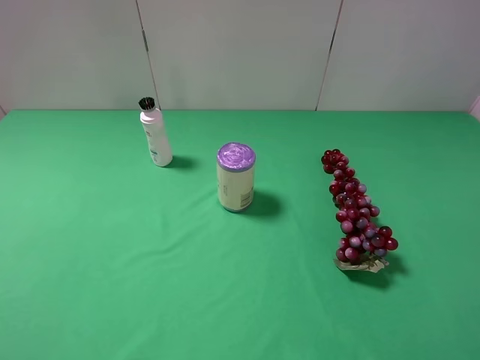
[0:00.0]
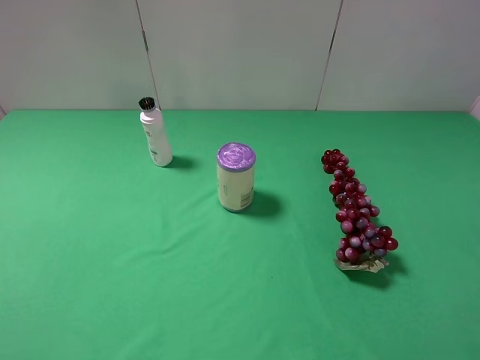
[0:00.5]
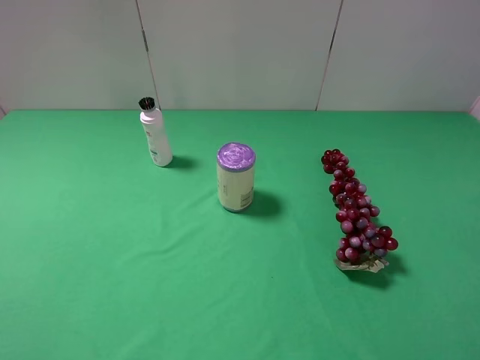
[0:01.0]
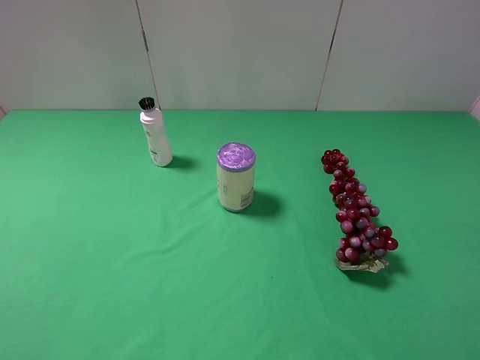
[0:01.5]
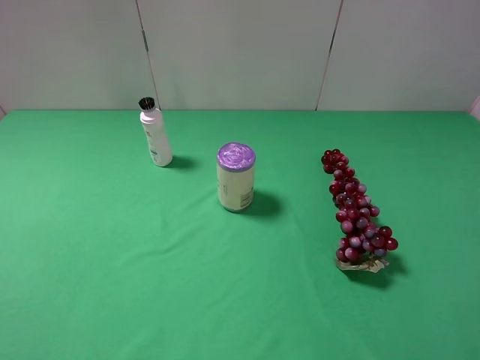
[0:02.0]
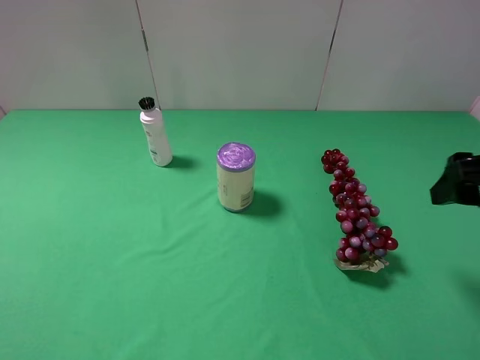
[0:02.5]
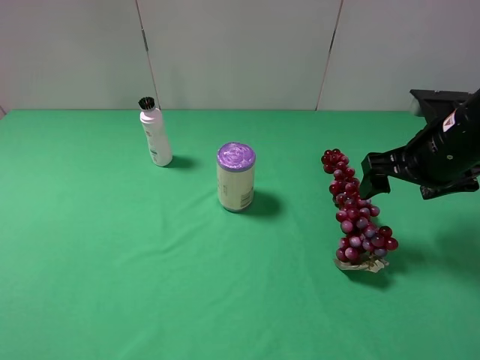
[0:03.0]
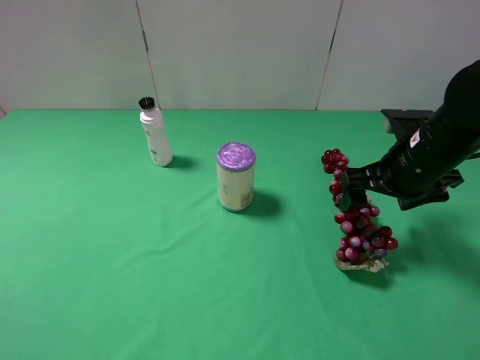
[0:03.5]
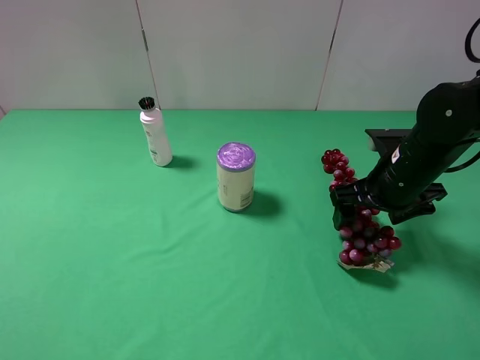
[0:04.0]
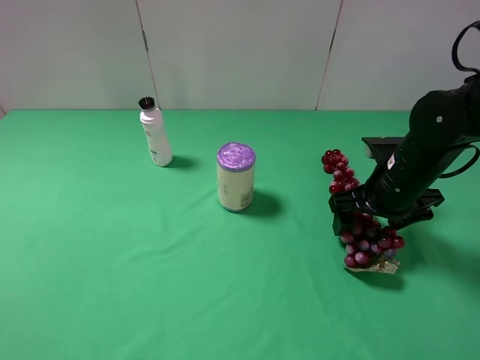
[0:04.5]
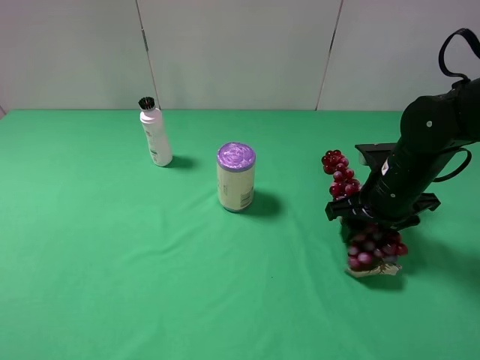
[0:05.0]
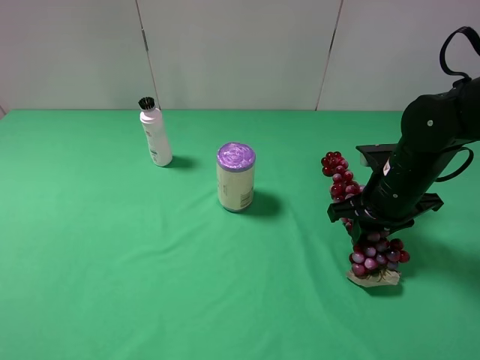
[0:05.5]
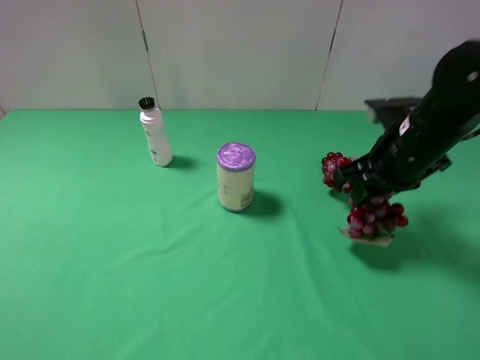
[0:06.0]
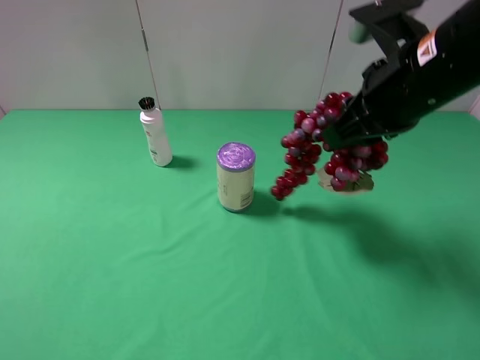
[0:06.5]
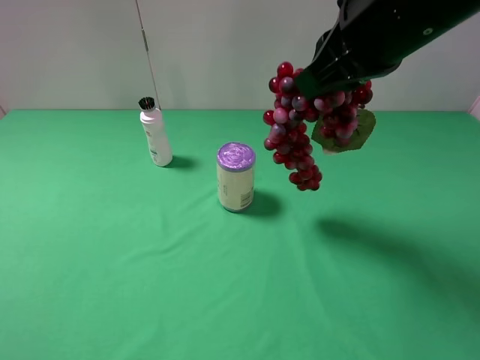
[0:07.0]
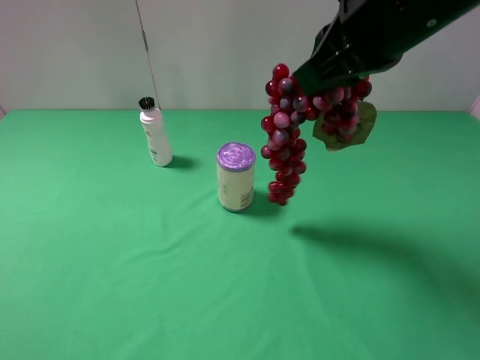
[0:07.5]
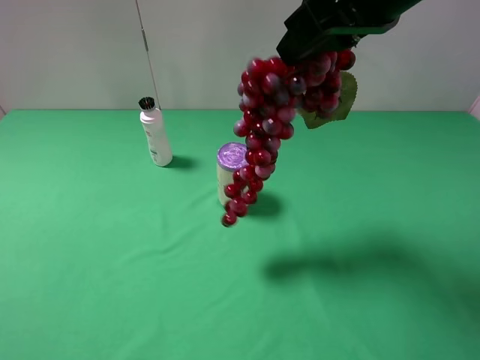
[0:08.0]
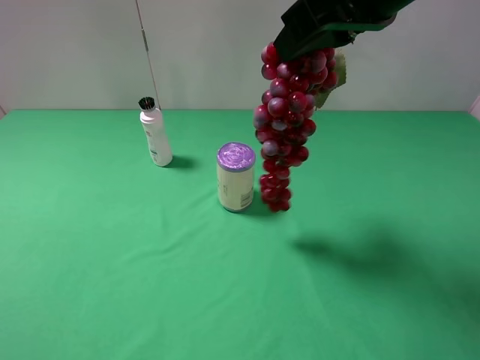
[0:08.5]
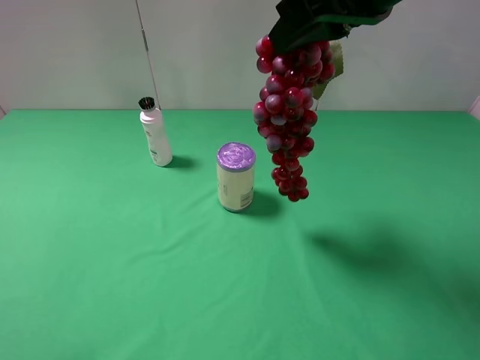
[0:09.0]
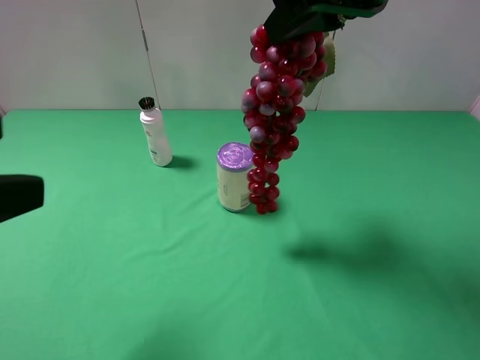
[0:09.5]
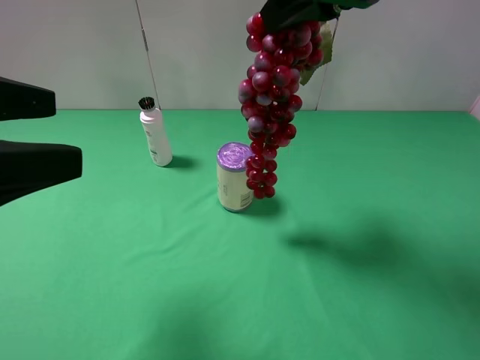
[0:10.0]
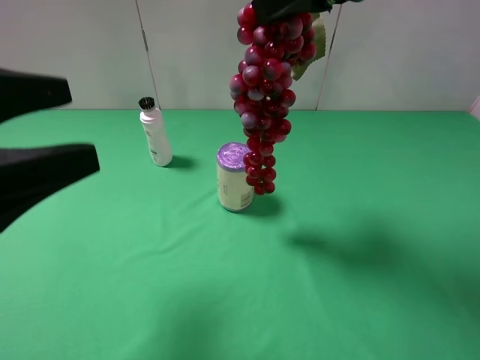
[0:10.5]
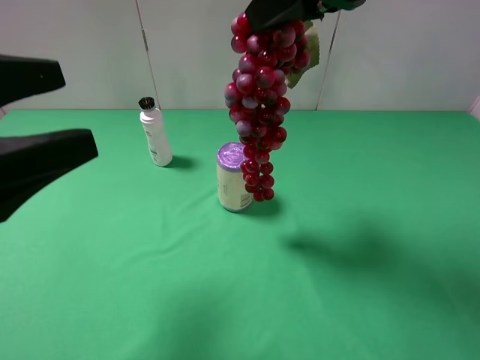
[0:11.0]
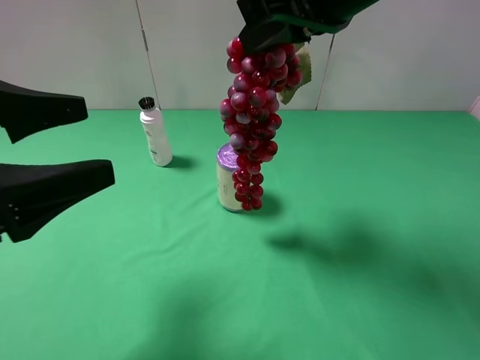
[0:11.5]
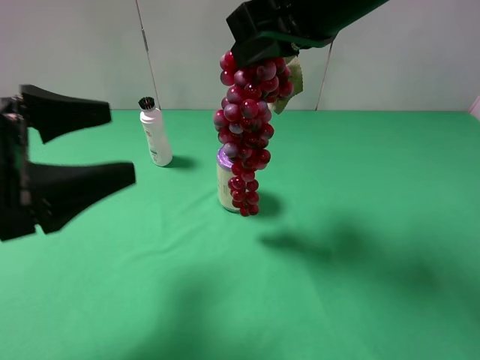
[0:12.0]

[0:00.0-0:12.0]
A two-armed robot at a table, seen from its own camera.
Task of the whole recording: use the right gripper to pick up the item and transfer it from the right gripper to the left gripper.
Step, 0:00.0 to 0:05.0: Use the right gripper to grab the grape on the right side of the table.
0:02.0 to 0:04.0: The right gripper moves forward, downward and to the left, about 25 cm.
0:04.0 to 0:06.0: The right gripper heads upward, covering some 5 cm, and closes its fingers.
0:06.0 to 0:08.0: The right gripper is displaced upward and to the left by roughly 20 cm.
0:08.0 to 0:10.0: The left gripper travels forward and to the right by some 15 cm.
0:10.0 to 0:12.0: The left gripper moves downward, some 5 cm.

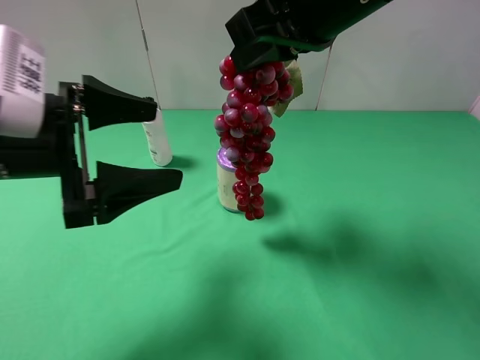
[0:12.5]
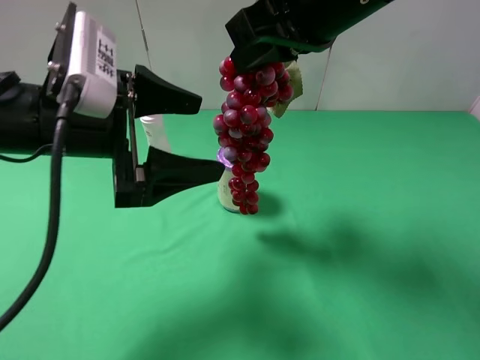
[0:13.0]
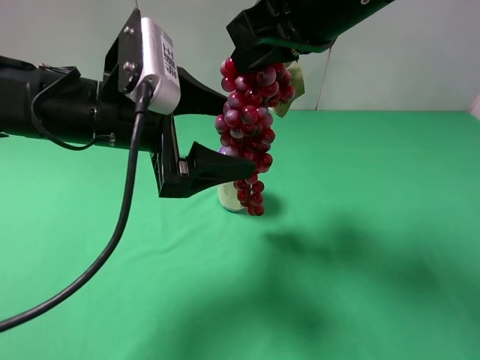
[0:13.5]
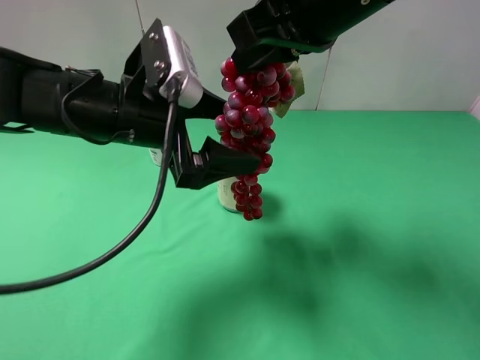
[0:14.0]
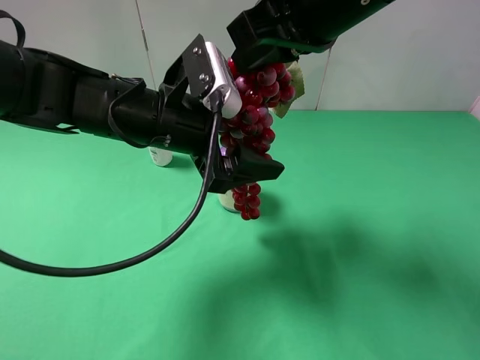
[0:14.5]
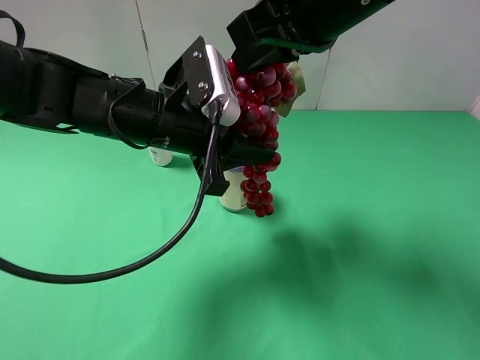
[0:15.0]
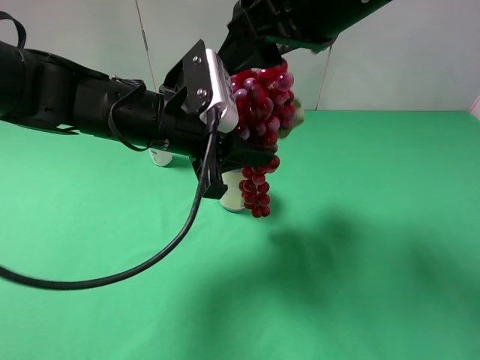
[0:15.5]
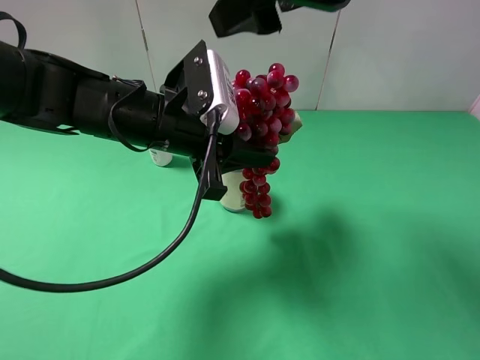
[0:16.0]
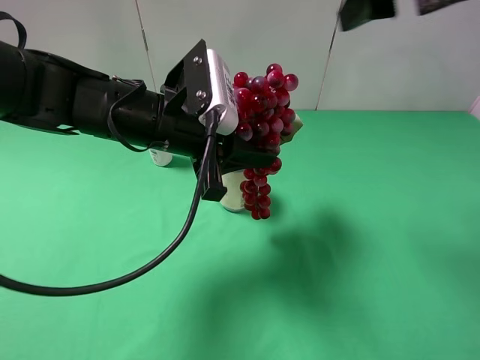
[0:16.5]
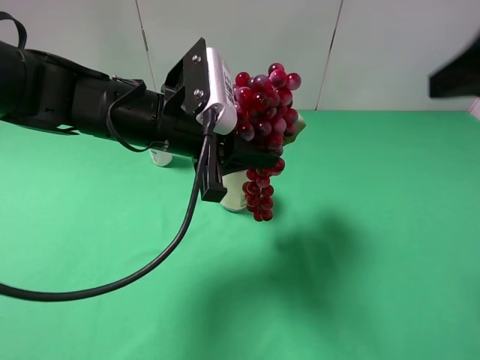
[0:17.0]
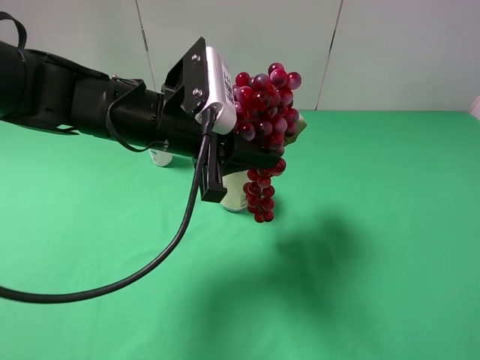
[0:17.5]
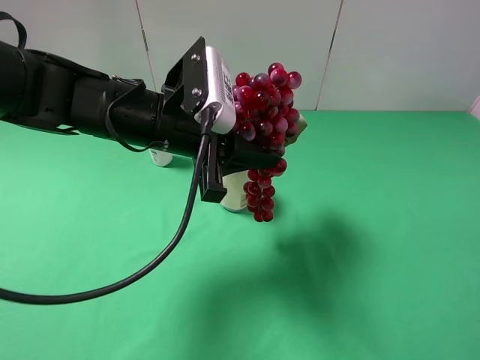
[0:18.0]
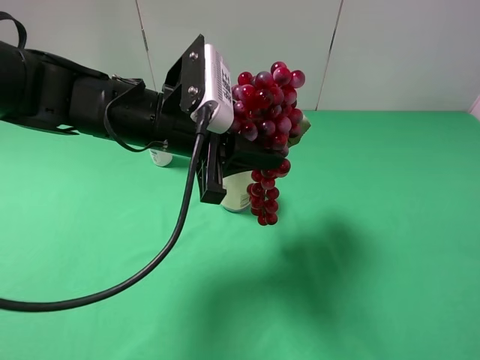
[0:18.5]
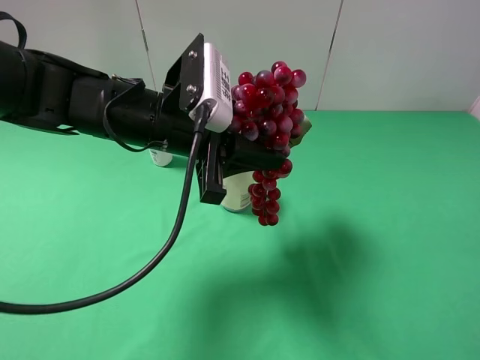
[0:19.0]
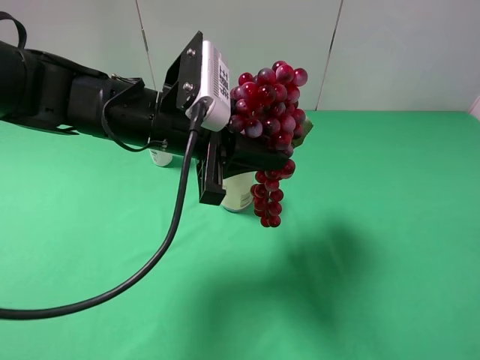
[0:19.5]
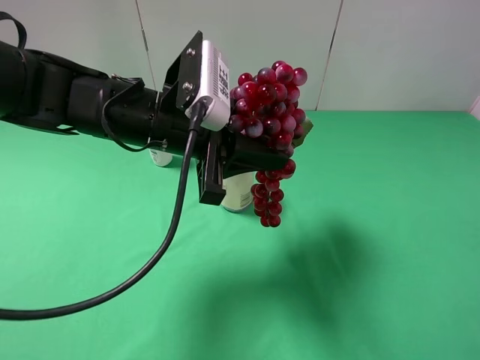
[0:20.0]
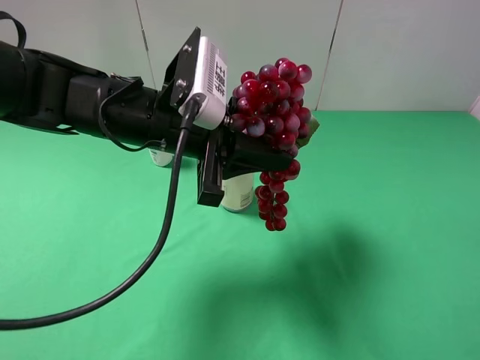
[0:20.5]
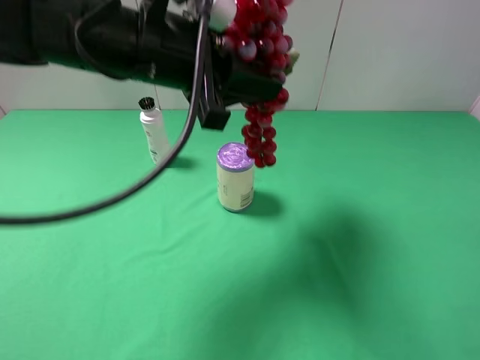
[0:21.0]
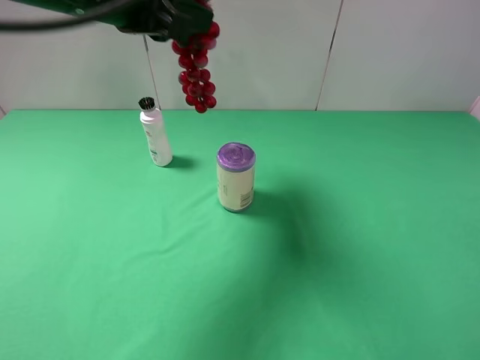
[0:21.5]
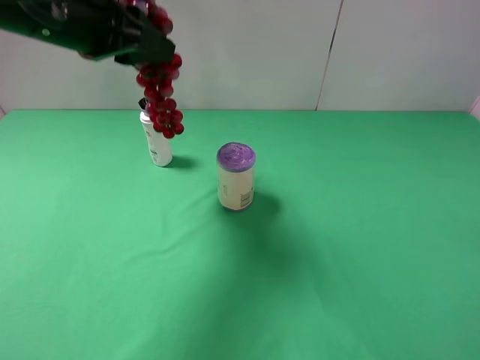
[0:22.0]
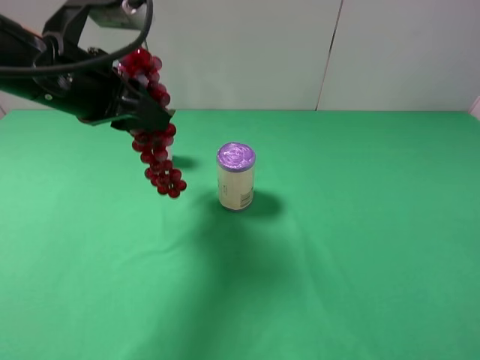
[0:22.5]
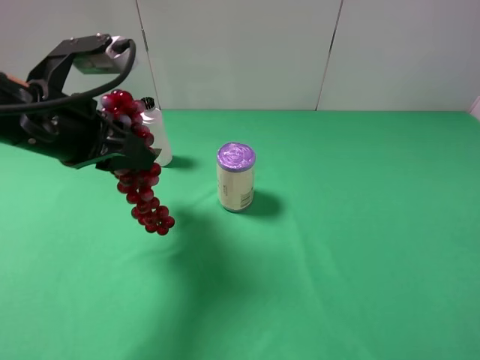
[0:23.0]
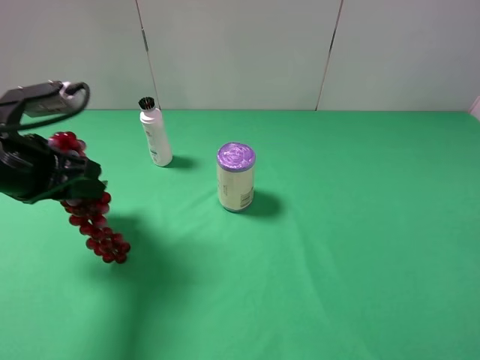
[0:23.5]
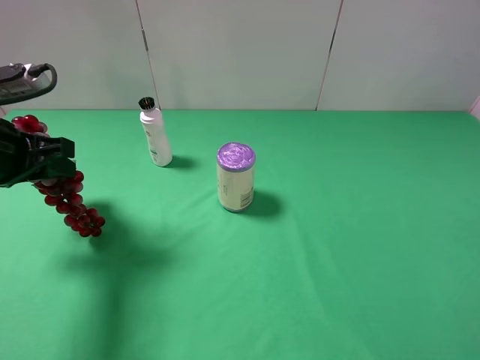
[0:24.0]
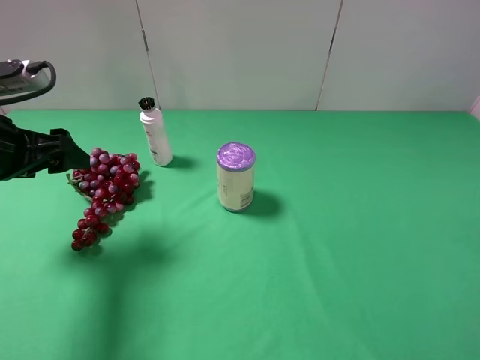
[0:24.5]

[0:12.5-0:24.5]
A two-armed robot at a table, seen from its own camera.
Task of the whole recording: use the right gripper to pick up the item and transfer it from the right gripper to the left gripper.
Step, 0:12.5 to 0:15.5: Pass the grape to the left gripper.
0:12.5 to 0:14.5: The left gripper heads to the right and forward, covering roughly 15 cm.
0:14.5 to 0:16.5: The left gripper closes, while the right gripper travels to the right by roughly 10 cm, and opens its fingers.
0:16.5 to 0:18.5: The right gripper shifts some 30 cm backward, downward and to the right.
0:20.5 to 0:22.5: The left gripper shifts approximately 10 cm to the left and upward.
0:22.5 to 0:24.5: The left gripper moves to the left and downward, approximately 10 cm, and opens its fingers.

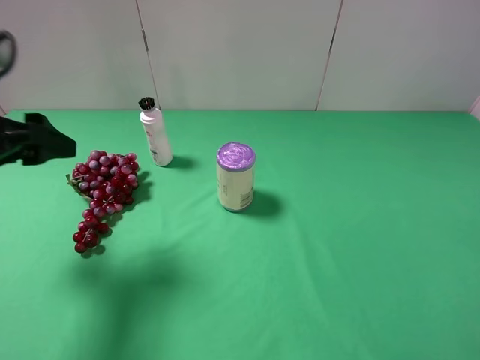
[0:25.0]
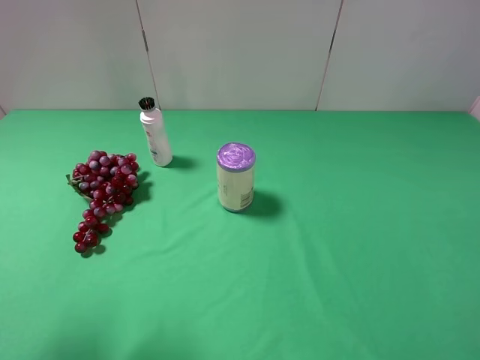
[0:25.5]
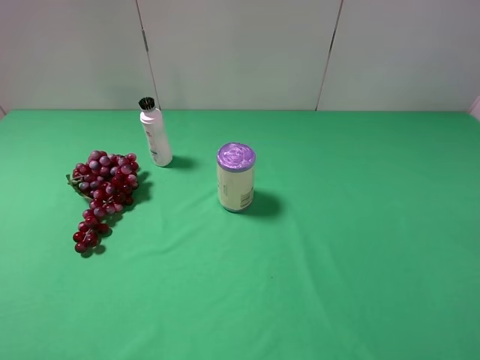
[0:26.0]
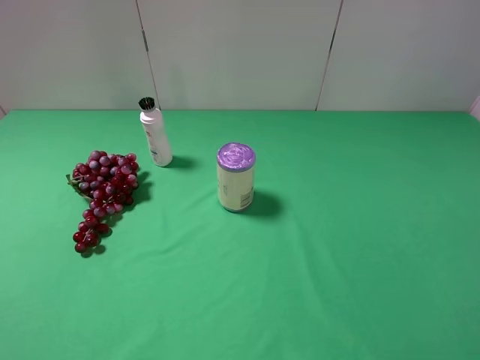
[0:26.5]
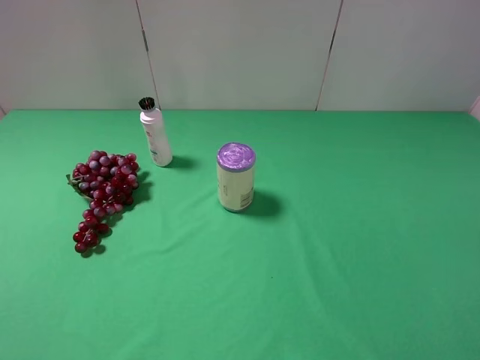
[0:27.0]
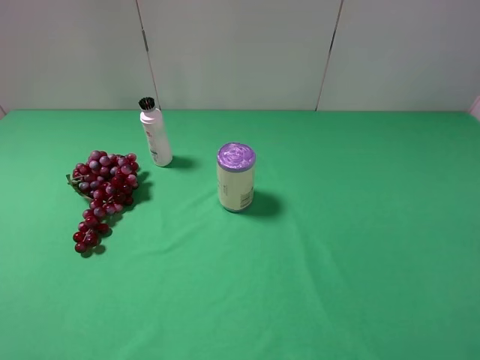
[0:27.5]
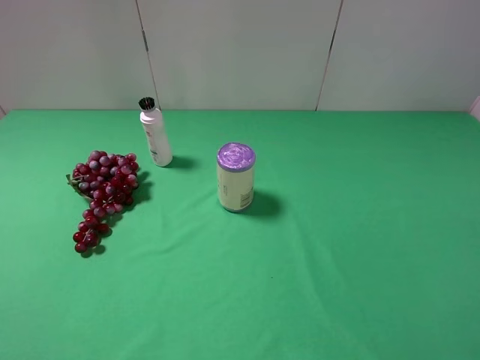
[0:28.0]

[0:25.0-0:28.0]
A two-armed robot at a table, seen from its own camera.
Task of the whole recording: use the right gripper to pick up the item and transfer it from the right gripper to the left gripper.
0:25.0 to 0:26.5: The left gripper shifts approximately 20 cm backward.
